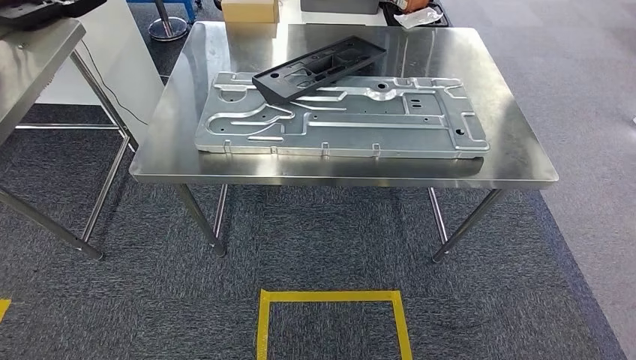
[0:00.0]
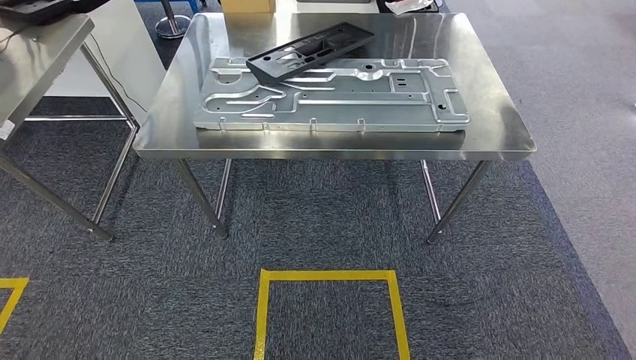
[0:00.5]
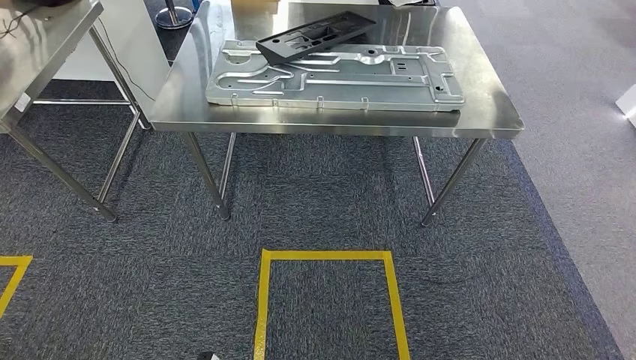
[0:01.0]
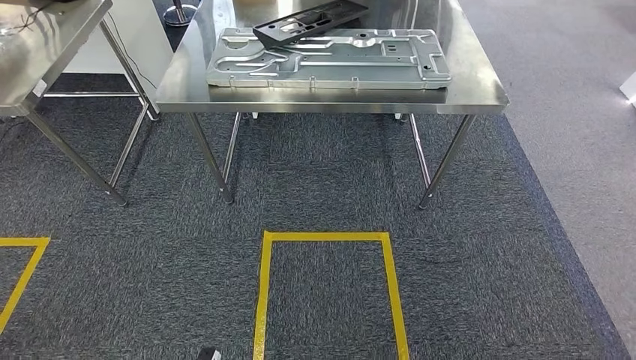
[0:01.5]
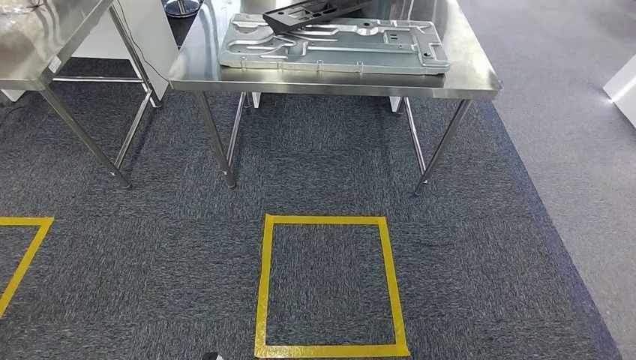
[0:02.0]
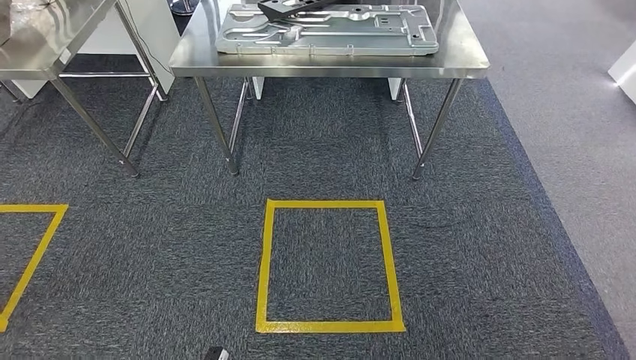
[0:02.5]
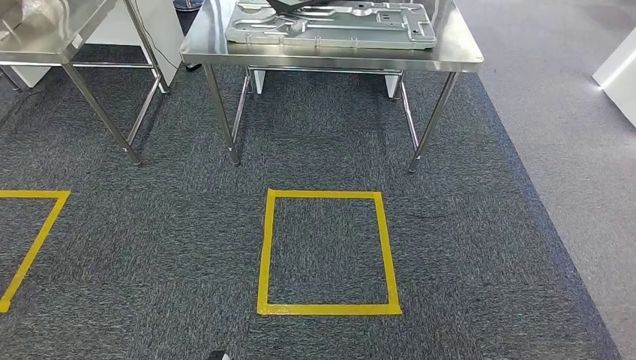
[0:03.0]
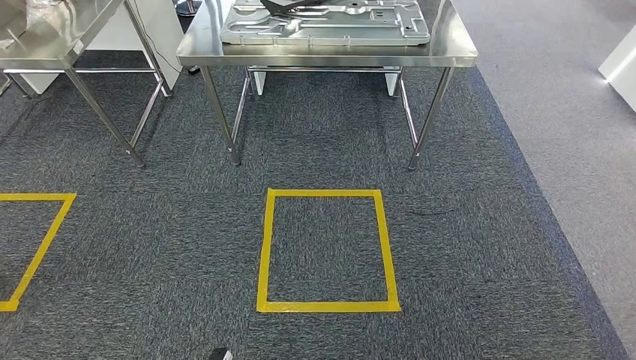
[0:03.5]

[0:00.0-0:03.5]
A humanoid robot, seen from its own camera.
Step, 0:00.0 to 0:03.5: Move to the initial position of the shelf.
